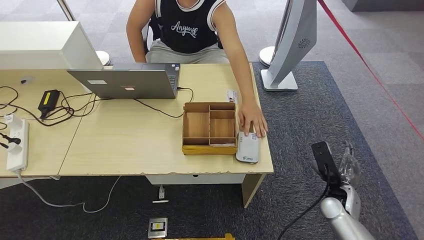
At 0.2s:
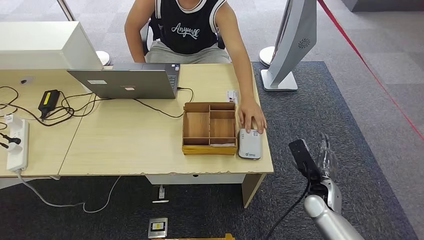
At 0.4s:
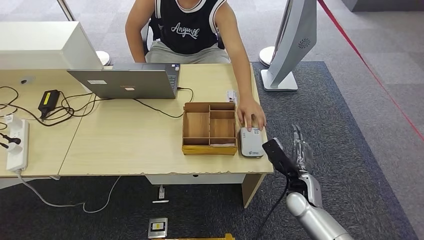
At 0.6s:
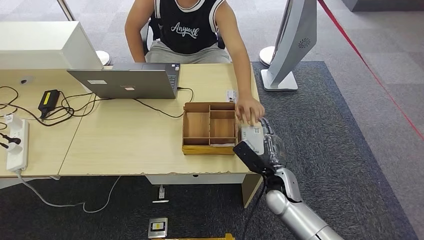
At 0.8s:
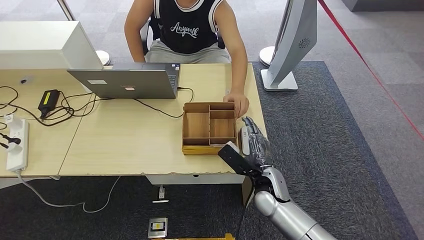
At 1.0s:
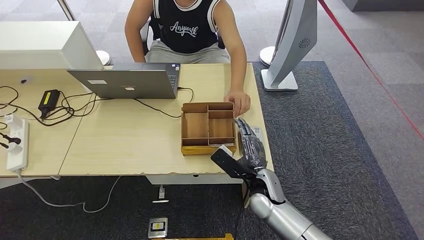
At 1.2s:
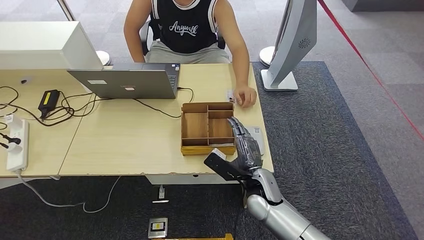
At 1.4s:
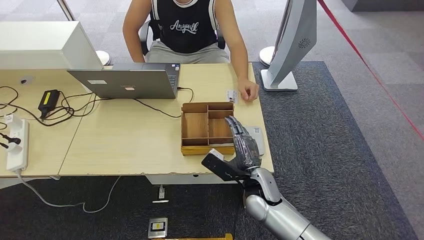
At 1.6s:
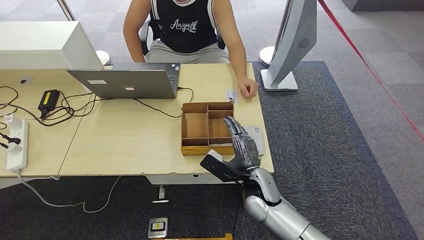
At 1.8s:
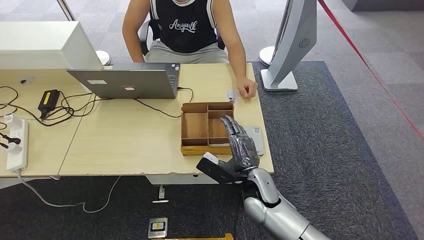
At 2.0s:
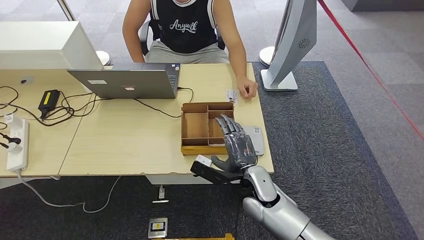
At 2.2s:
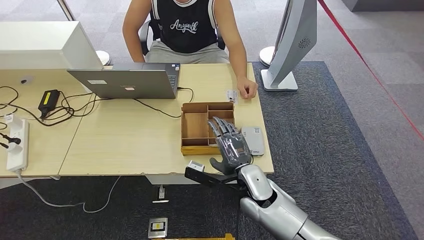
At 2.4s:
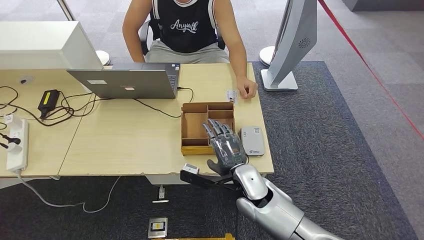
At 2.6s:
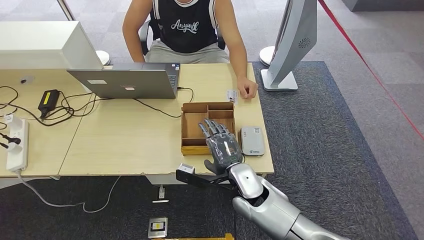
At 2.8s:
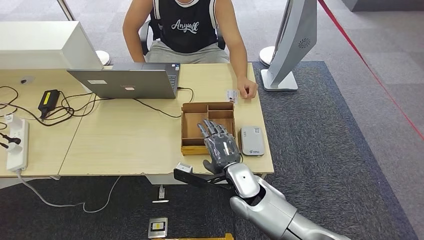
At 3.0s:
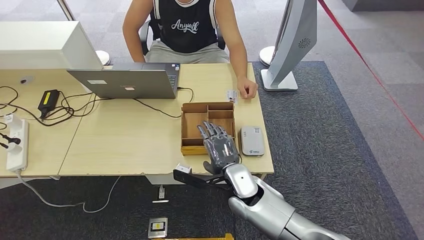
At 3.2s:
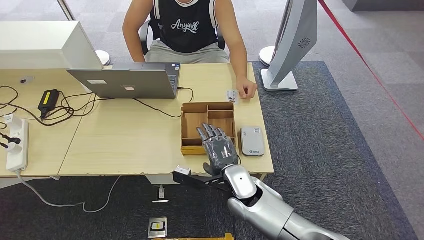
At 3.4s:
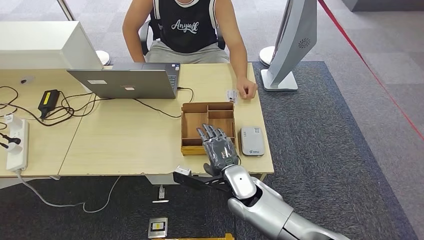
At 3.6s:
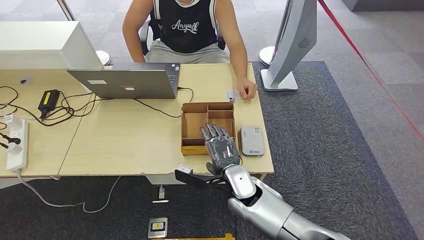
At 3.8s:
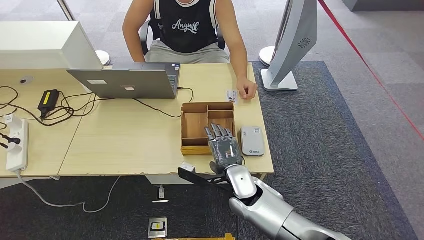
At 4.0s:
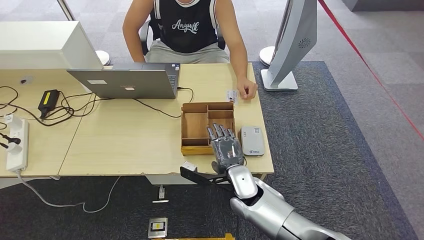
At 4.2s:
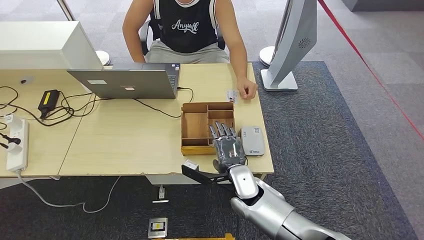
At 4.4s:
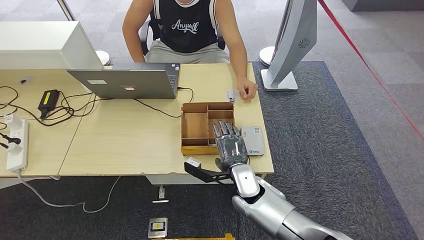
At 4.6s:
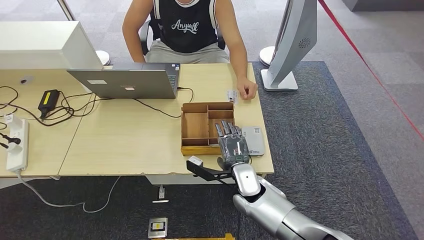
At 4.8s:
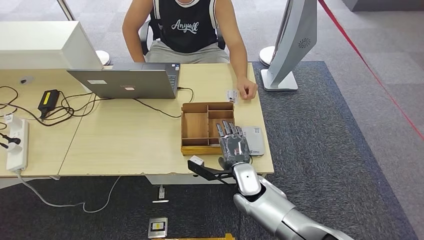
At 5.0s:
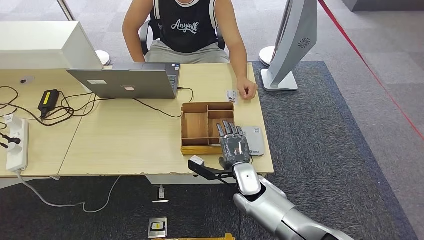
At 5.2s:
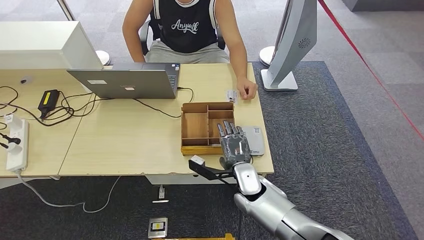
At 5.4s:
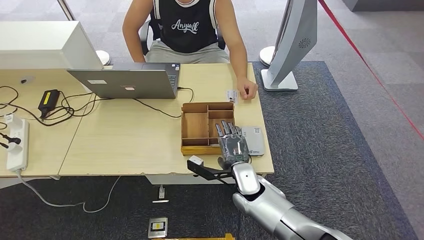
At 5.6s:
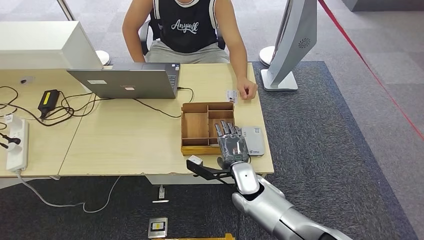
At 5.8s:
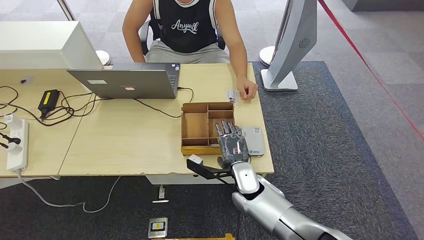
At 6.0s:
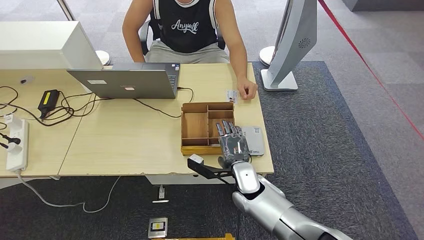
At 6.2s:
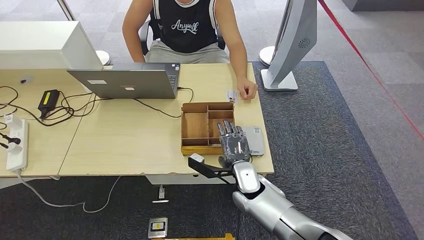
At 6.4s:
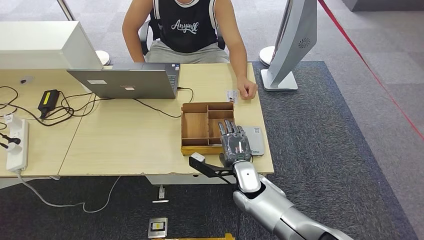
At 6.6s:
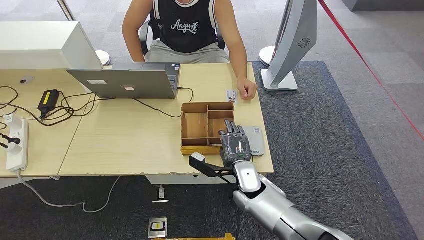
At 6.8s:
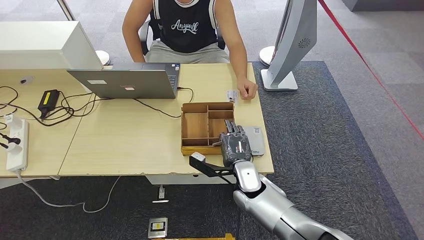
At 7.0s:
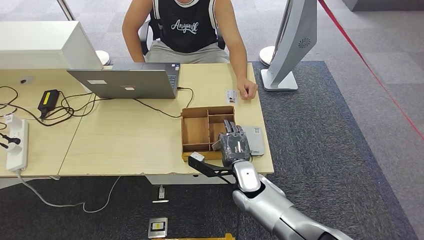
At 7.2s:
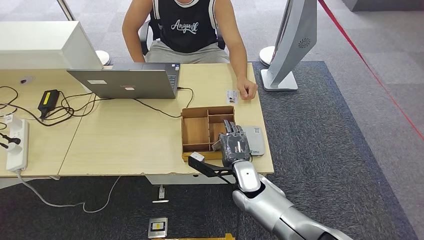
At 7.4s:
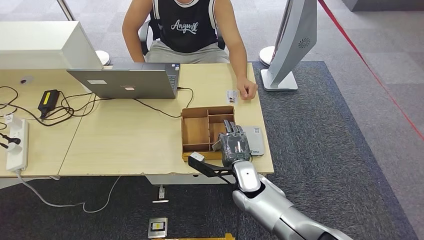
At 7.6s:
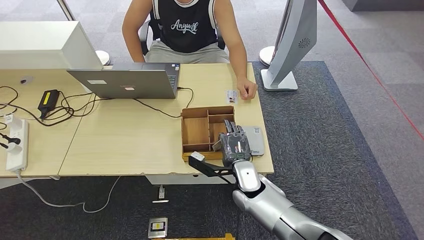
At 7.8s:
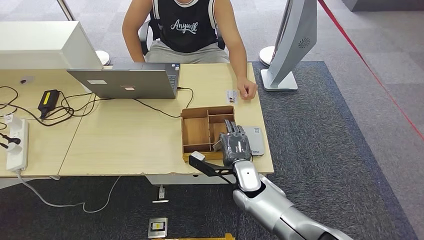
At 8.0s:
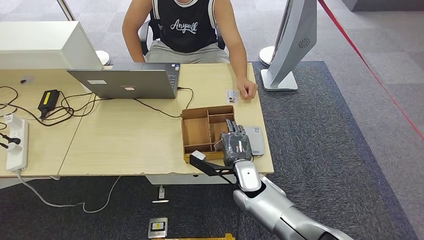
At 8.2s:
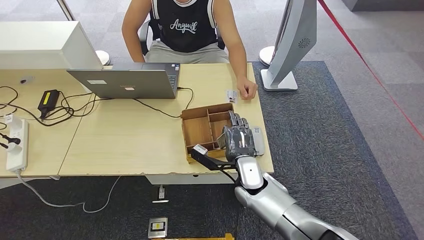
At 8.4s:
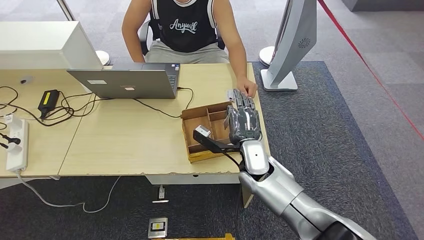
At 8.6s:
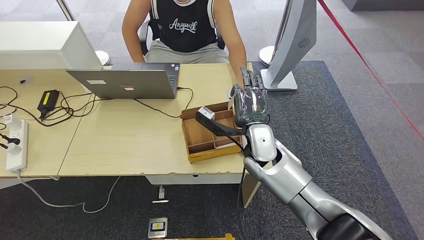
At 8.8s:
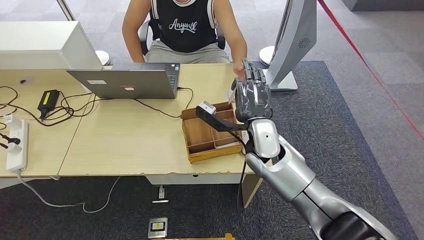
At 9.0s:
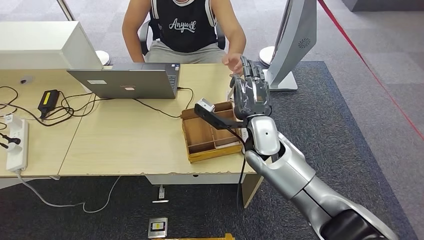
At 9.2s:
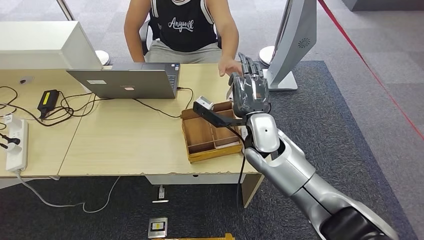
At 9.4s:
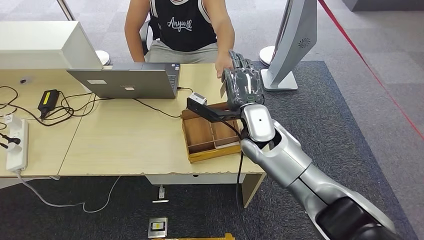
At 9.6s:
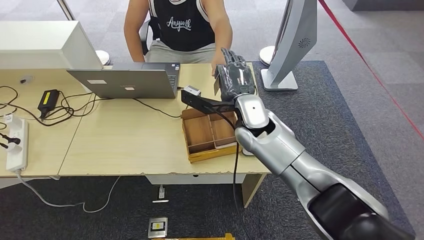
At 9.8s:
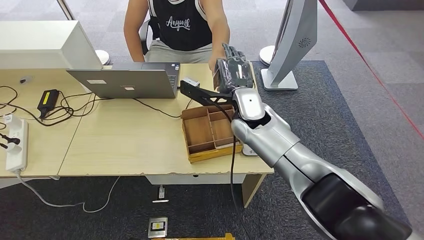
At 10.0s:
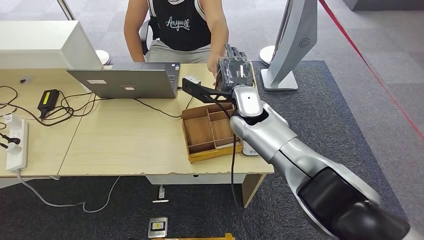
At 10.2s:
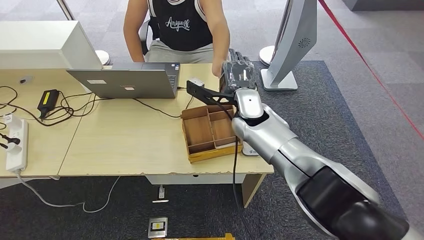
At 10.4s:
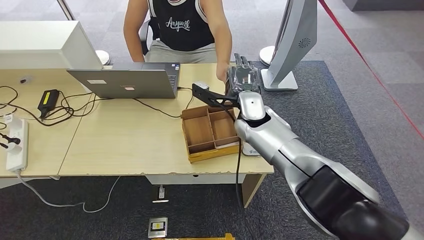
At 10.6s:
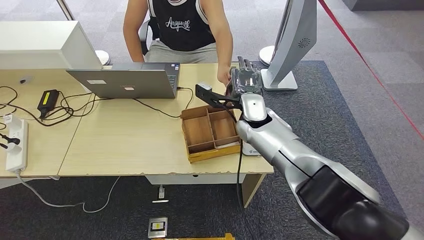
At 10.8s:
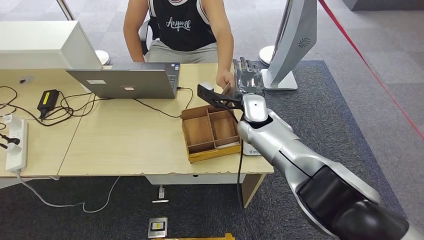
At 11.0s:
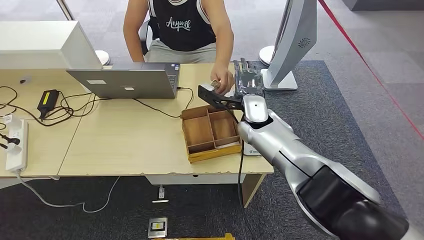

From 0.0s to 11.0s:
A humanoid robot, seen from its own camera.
Step, from 0.0s to 8.4s: Pick up the room key from the key card box.
Step, from 8.8s to 10.8s: Hand the room key to the person.
From 0.0s to 1.6s: The right hand heads to the left, covering about 25 cm.
From 1.6s to 3.2s: The right hand travels to the left by roughly 5 cm.
From 3.2s to 4.8s: The hands stay close to where they were, moving slightly.
From 4.8s to 7.8s: Both hands stay put.
From 7.8s to 9.4s: The right hand moves upward and forward, roughly 20 cm.
From 9.4s to 11.0s: The right hand is displaced forward by approximately 5 cm.

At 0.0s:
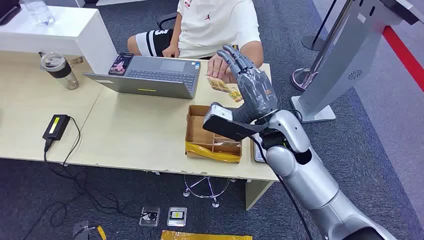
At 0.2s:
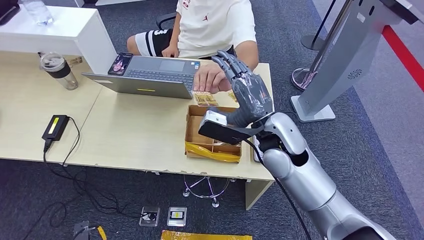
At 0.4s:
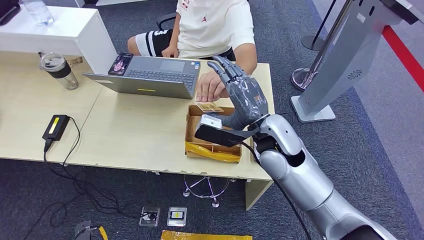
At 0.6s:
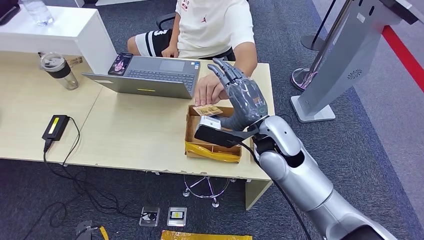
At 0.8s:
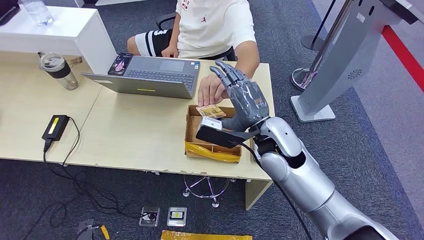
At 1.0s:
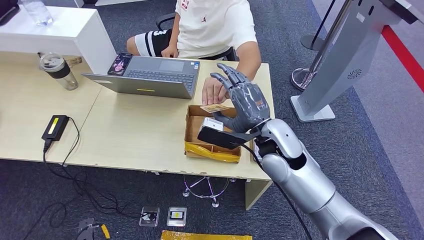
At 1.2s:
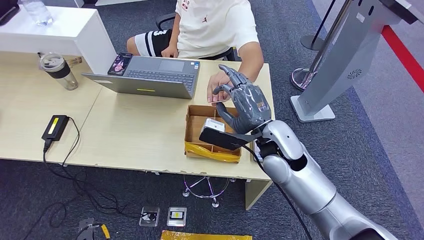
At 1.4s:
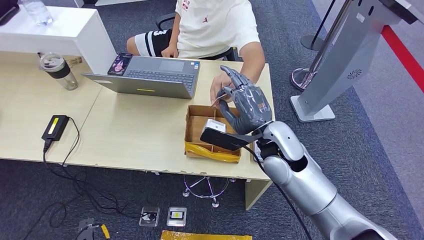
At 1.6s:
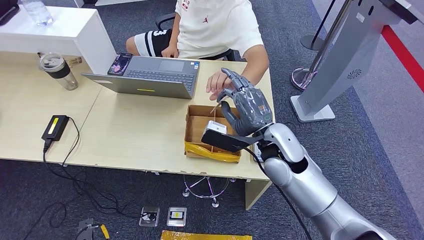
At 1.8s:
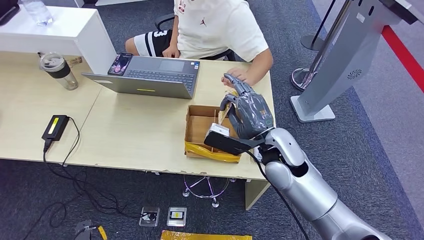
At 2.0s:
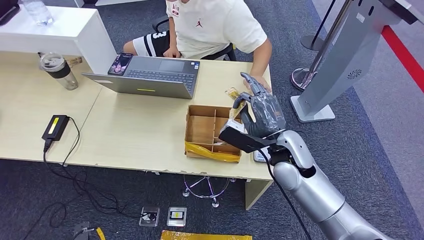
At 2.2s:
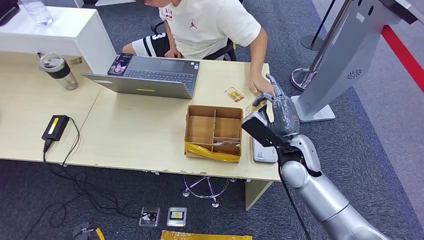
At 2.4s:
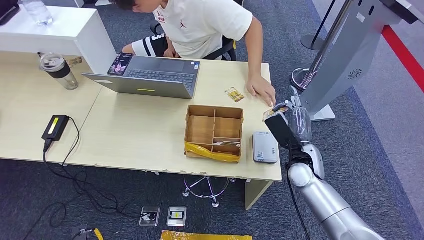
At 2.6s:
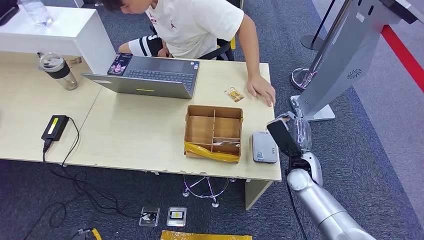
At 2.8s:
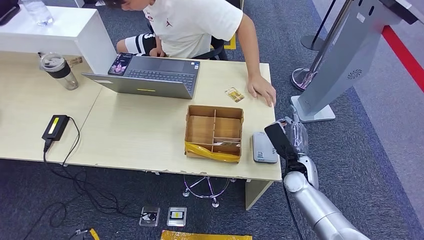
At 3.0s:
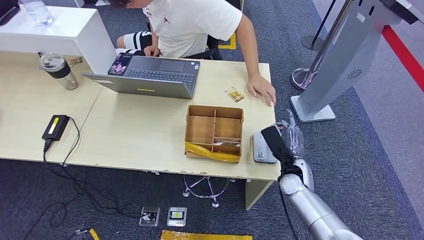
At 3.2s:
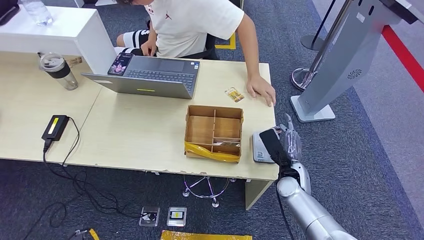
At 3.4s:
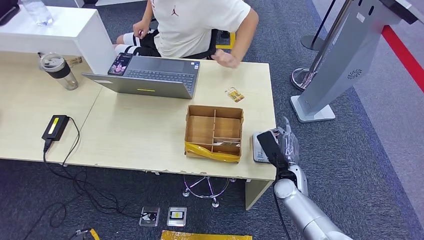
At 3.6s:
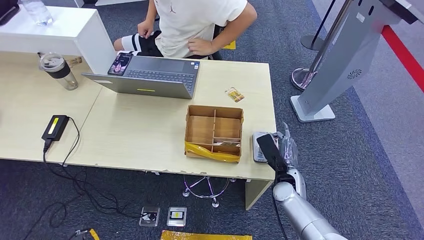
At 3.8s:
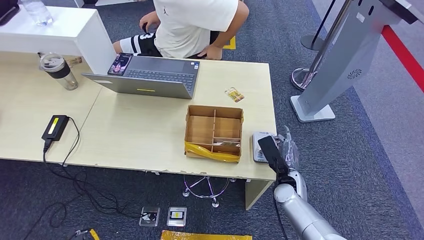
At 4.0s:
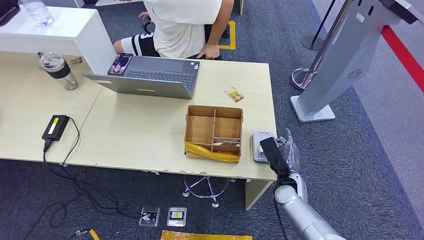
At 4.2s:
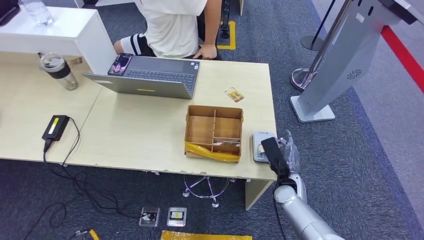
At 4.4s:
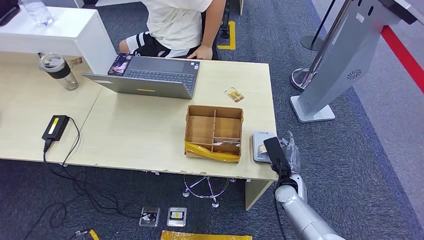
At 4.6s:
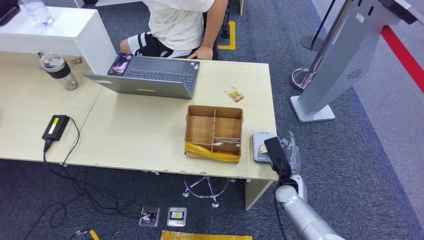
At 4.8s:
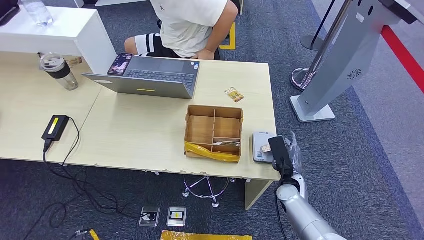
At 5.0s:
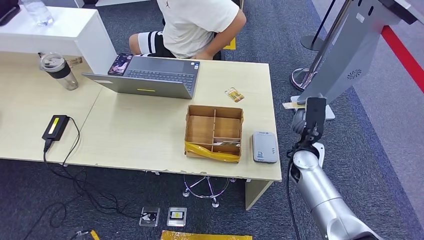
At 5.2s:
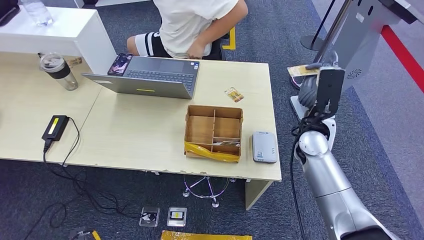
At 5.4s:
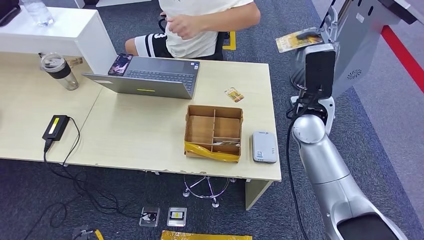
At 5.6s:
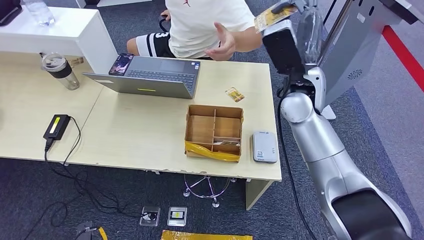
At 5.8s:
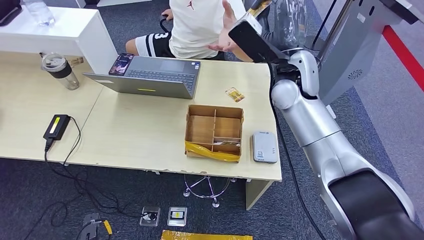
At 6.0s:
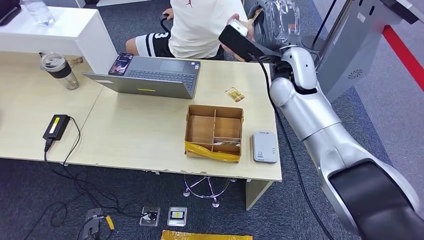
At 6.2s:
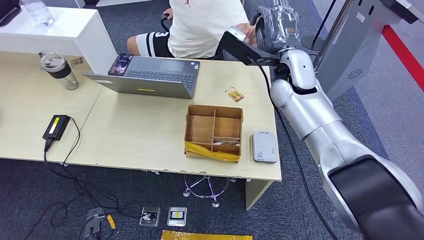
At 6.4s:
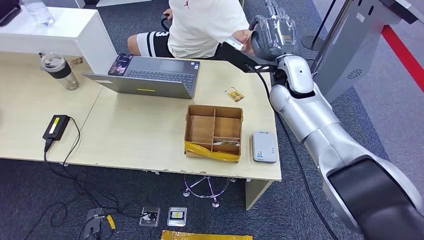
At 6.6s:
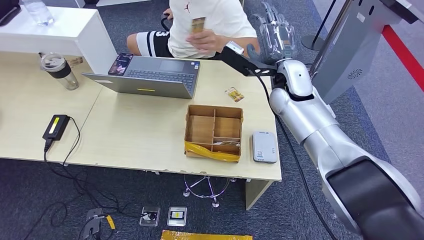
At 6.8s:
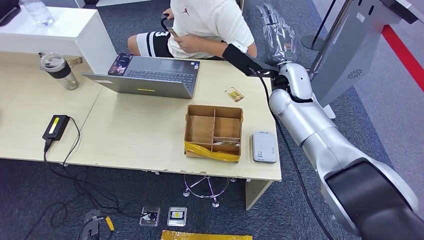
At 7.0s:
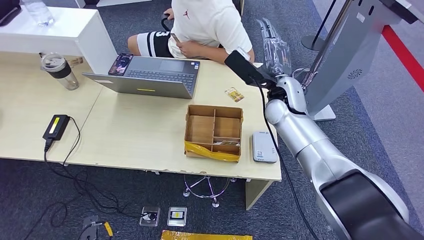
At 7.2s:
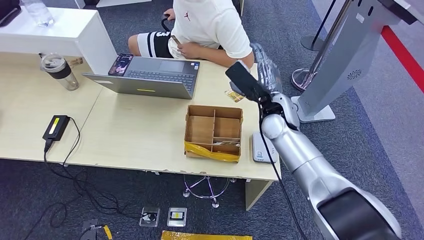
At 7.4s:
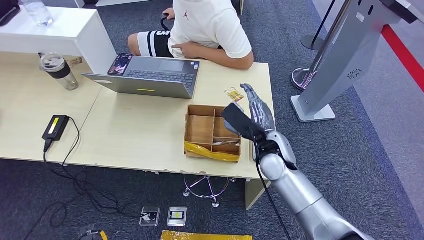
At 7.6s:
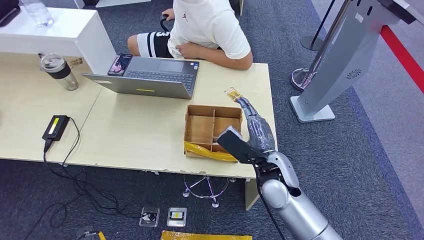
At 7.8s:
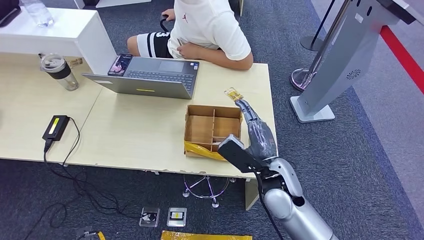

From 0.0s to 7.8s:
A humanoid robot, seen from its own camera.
Step, from 0.0s to 1.8s: Take the ID card from the person's hand.
Step, from 2.0s to 5.4s: Place the ID card on the card reader.
From 1.6s to 3.2s: The right hand is displaced downward and to the right by some 20 cm.
From 3.2s to 4.6s: There are only small adjustments of the hands.
